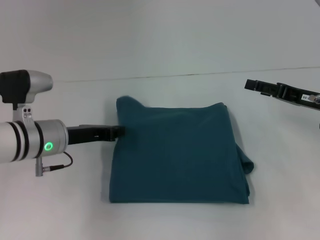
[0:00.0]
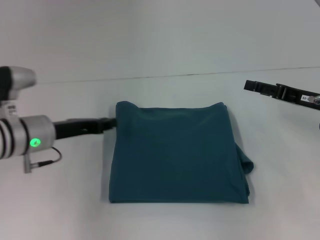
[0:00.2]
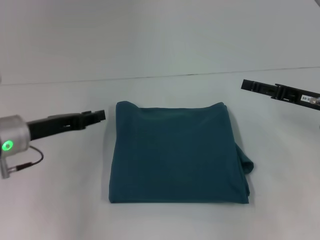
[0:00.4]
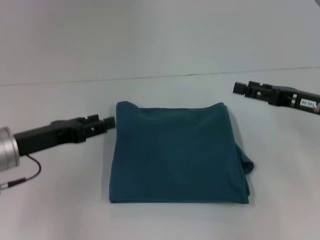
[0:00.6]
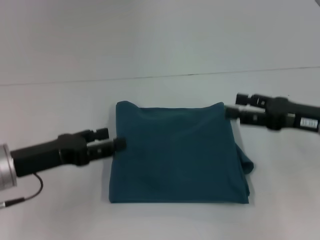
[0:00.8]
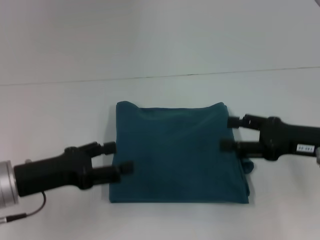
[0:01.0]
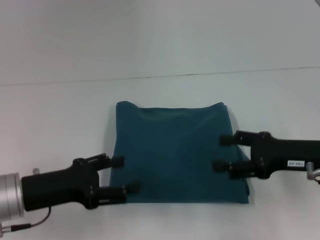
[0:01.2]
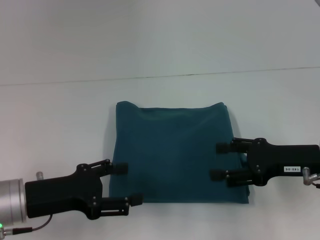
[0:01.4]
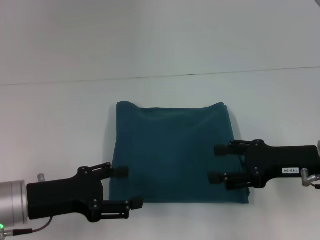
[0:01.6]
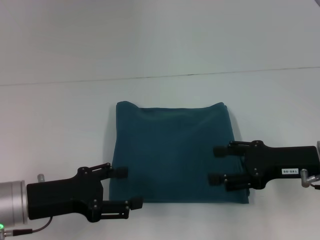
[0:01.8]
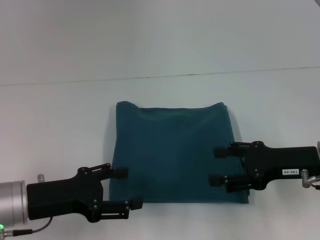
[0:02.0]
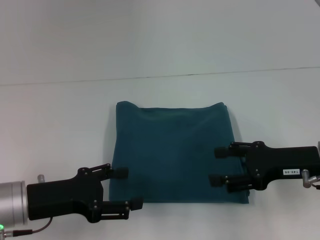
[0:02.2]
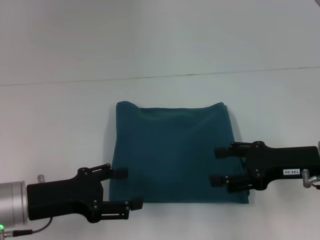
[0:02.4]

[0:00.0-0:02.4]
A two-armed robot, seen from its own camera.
0:00.0 to 0:01.2: The right gripper is displaced backward by roughly 5 cm. Meanwhile the left gripper travels backward by approximately 10 cm, and opens up.
0:01.2 to 0:02.4: There are only small adjustments of the grippers.
